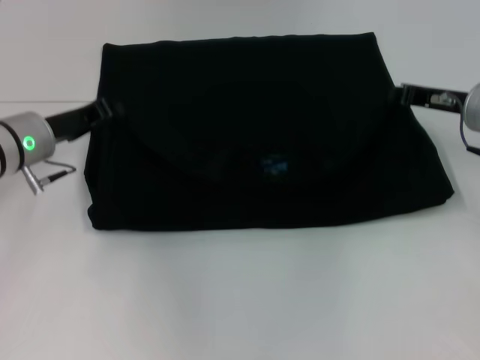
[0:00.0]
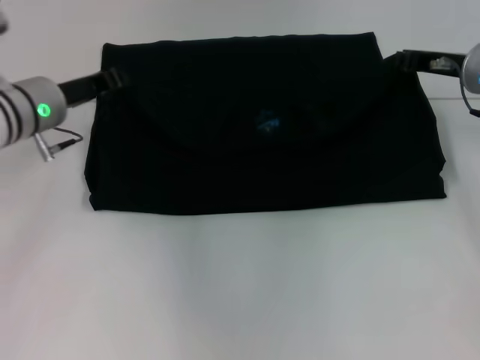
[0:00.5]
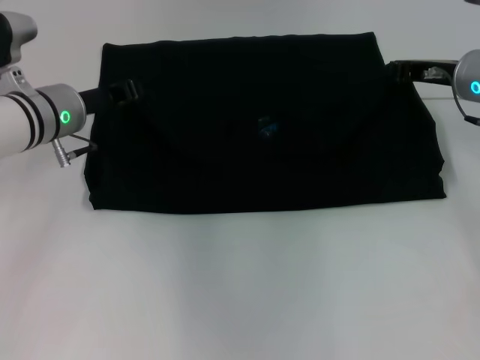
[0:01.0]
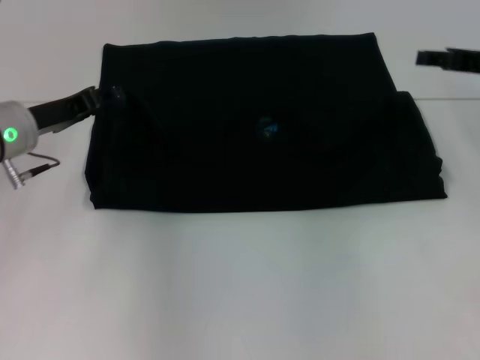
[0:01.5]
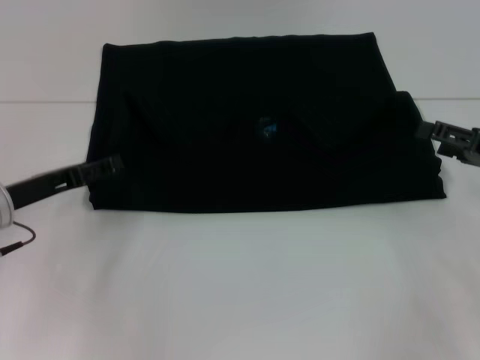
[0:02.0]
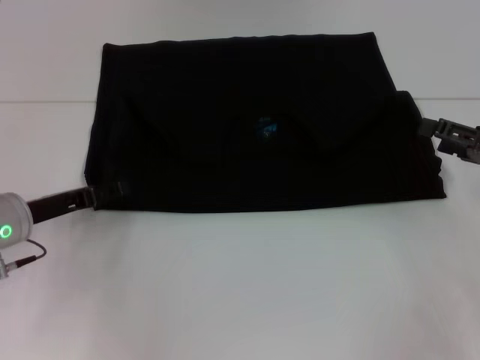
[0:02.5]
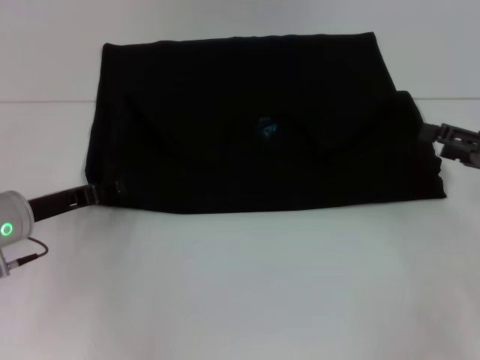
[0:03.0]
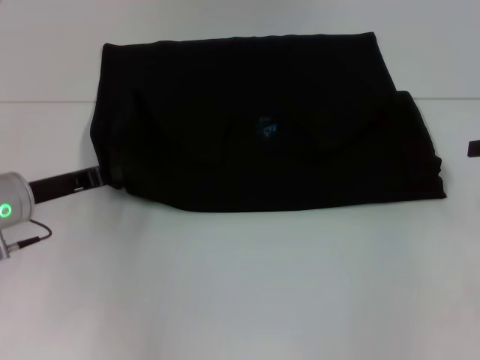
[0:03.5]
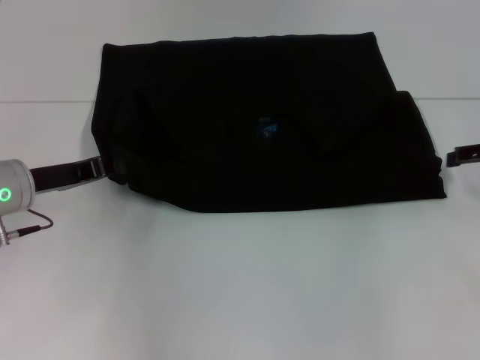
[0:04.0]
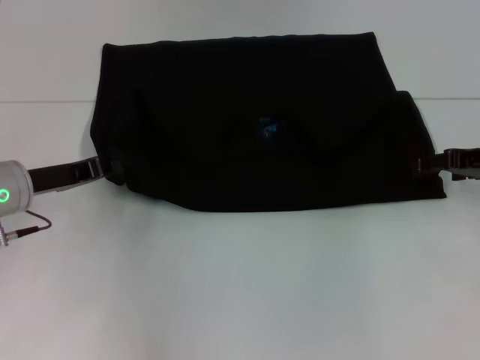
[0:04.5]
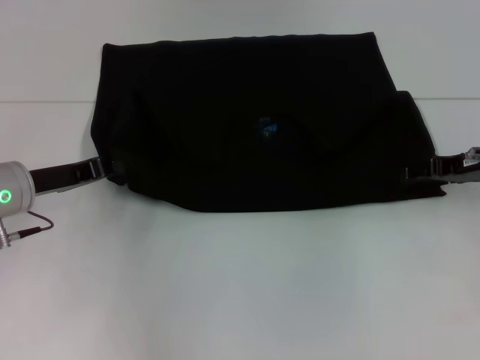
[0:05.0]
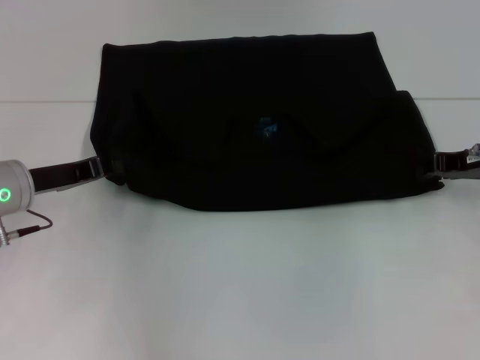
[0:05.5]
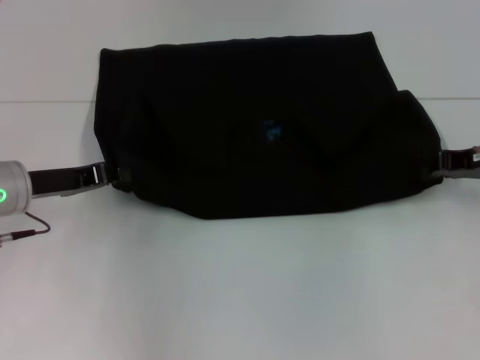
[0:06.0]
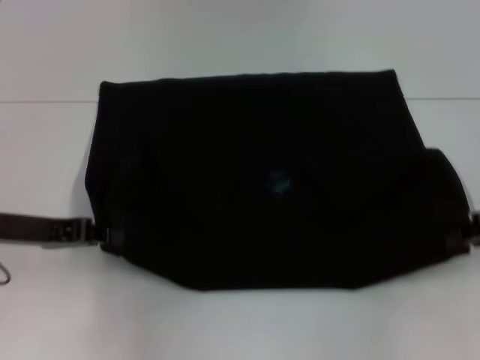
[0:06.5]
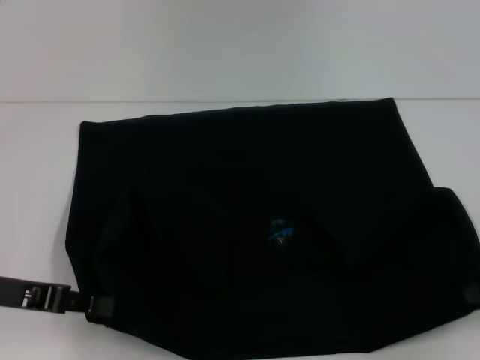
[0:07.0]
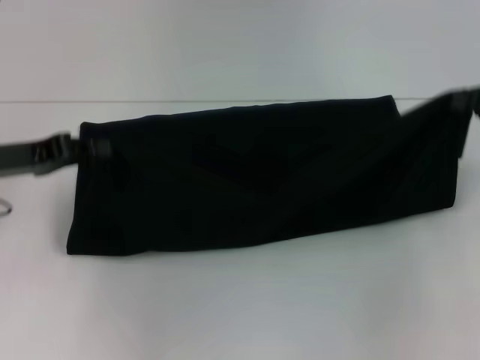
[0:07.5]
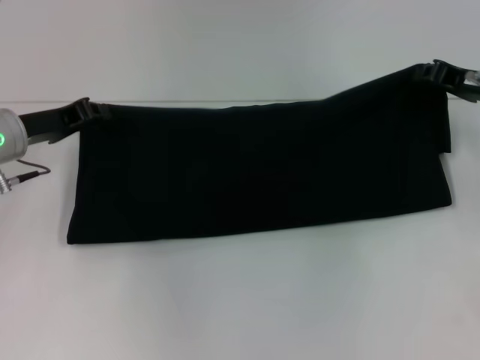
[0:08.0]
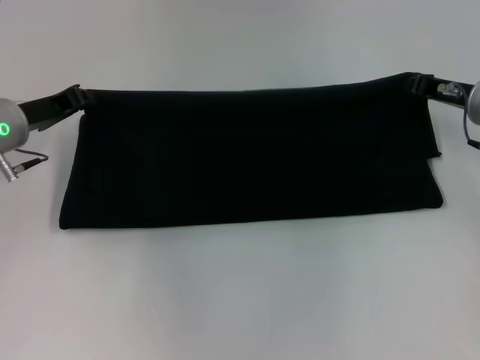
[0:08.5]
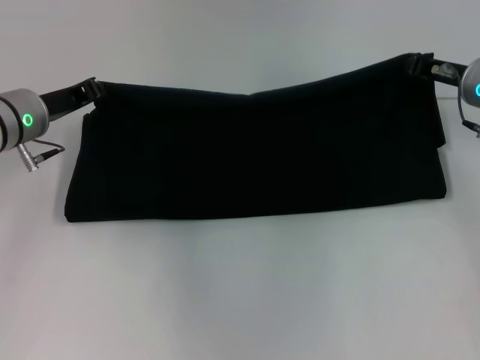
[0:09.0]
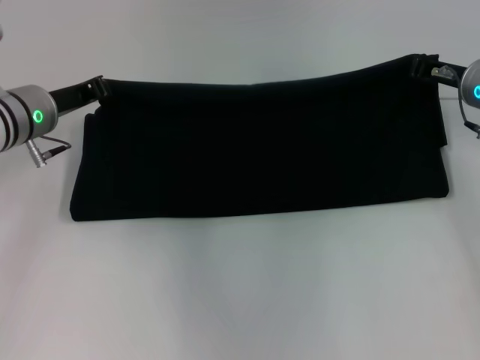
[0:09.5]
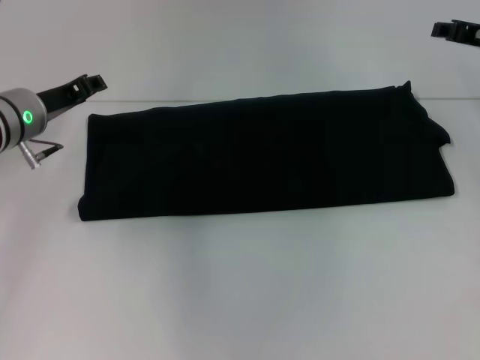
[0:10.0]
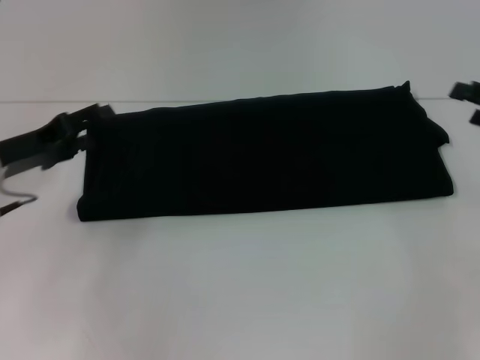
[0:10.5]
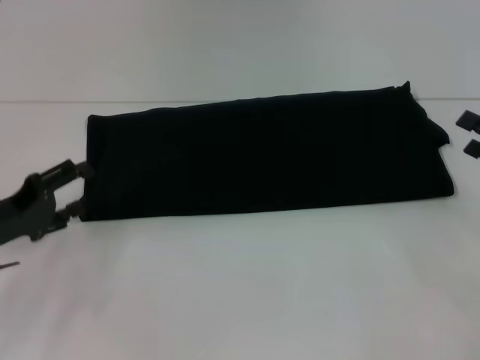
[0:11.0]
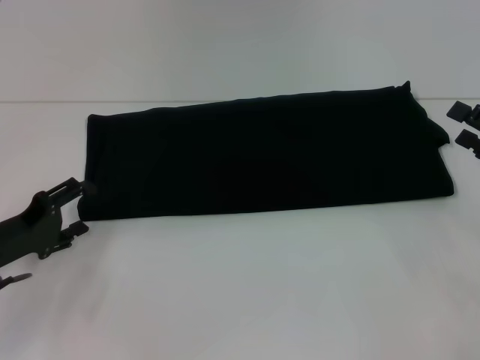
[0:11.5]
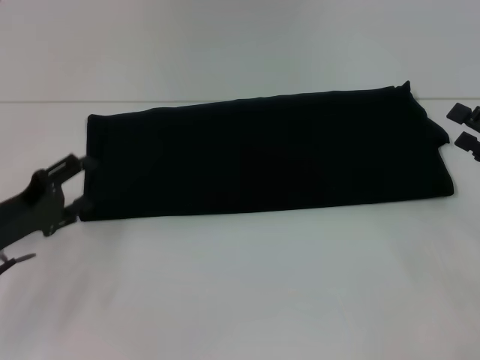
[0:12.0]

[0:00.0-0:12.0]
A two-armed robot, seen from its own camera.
Step, 0:01.5 to 0:06.5: Pull the clothes with your left hand.
Step, 0:01.5 to 0:06.5: Pull the clothes with your right hand.
Step, 0:07.0 to 0:09.5: Fold the clothes with your right hand.
0:00.0 to 0:02.0: The right gripper heads backward and to the right, covering some 10 cm, and opens its fingers. The left gripper heads backward, covering roughly 5 cm, and opens its fingers.
0:02.0 to 0:04.0: The right gripper heads forward, covering approximately 5 cm; the left gripper closes up.
0:04.0 to 0:06.0: The right gripper heads to the left, covering some 5 cm, and closes up.
0:06.0 to 0:08.0: The left gripper travels backward and back again, about 10 cm each way. The right gripper travels backward and back again, about 10 cm each way.
0:08.0 to 0:10.0: The right gripper moves approximately 5 cm.
0:10.0 to 0:12.0: The two grippers go some 15 cm backward and downward. The left gripper opens; the right gripper opens up.

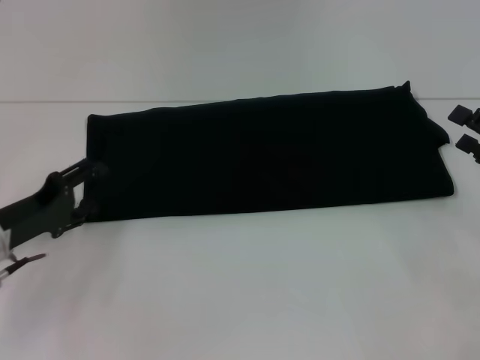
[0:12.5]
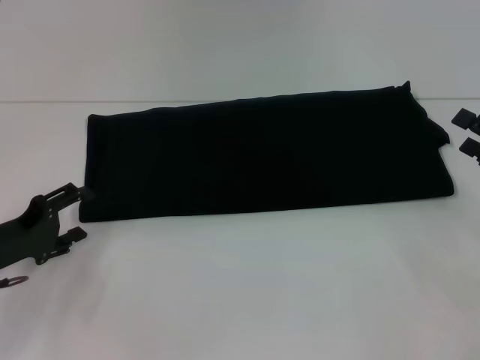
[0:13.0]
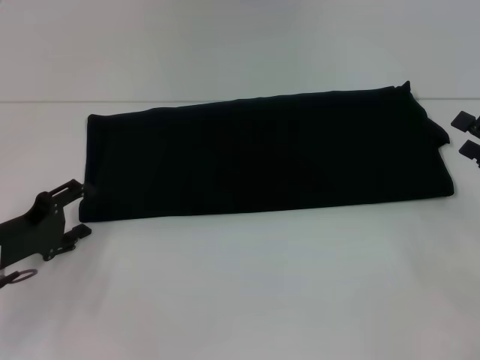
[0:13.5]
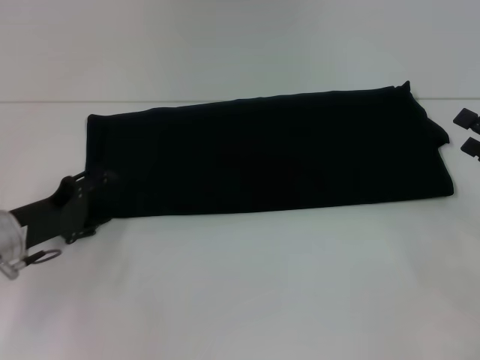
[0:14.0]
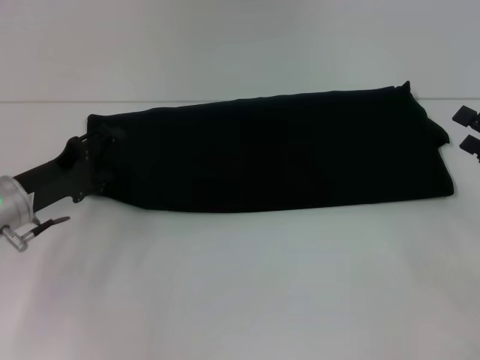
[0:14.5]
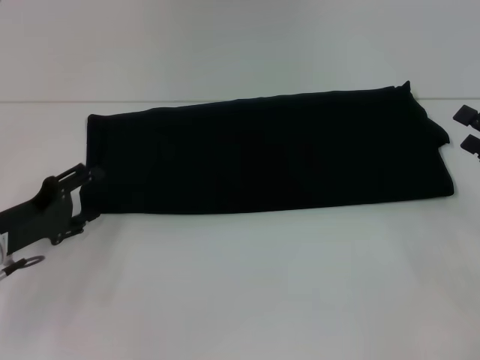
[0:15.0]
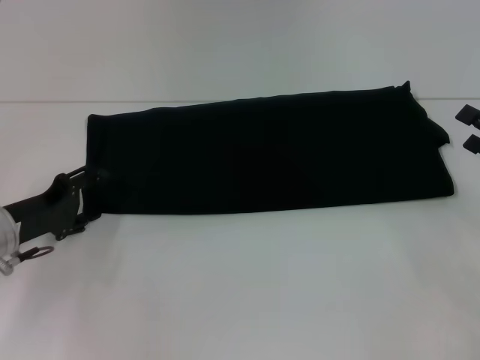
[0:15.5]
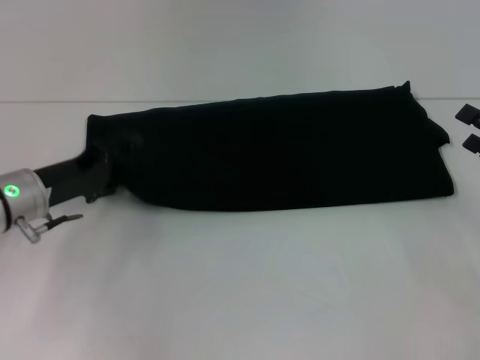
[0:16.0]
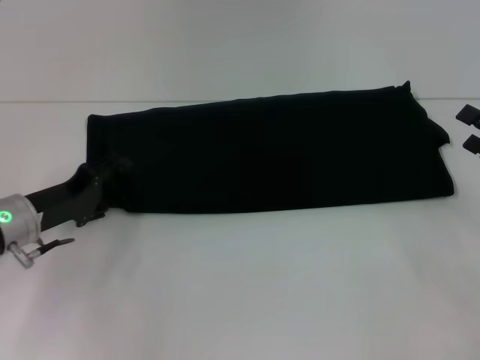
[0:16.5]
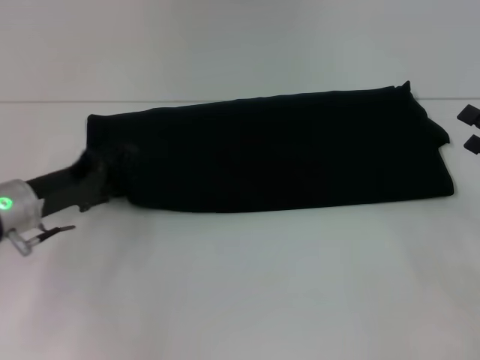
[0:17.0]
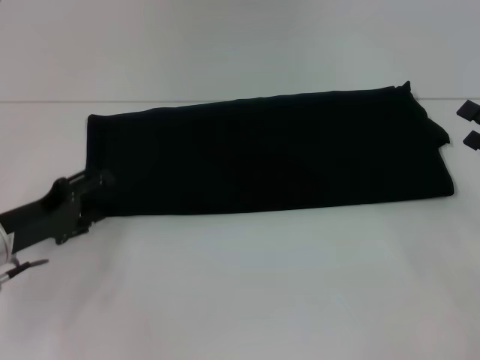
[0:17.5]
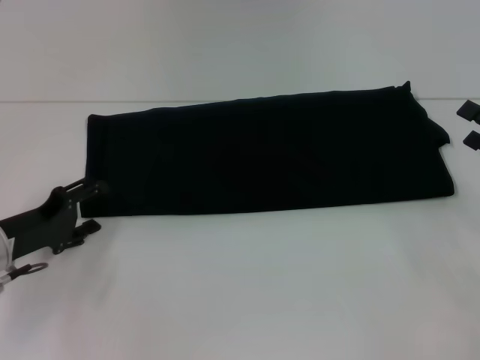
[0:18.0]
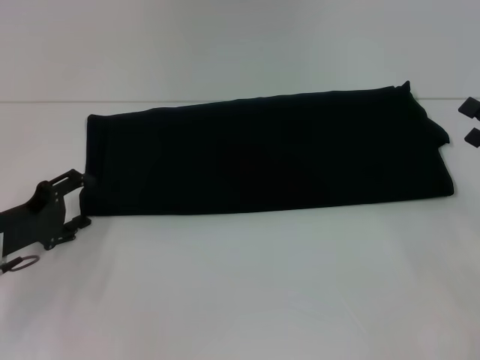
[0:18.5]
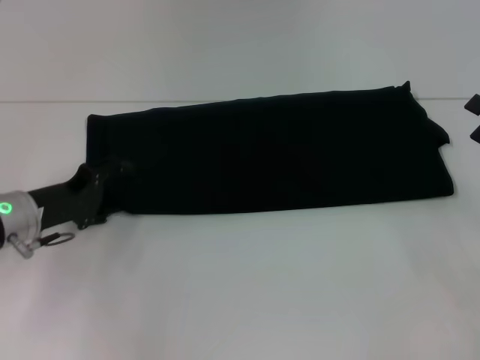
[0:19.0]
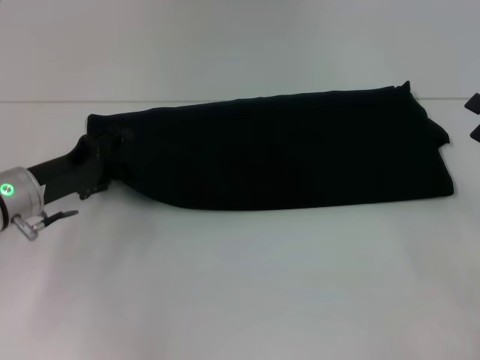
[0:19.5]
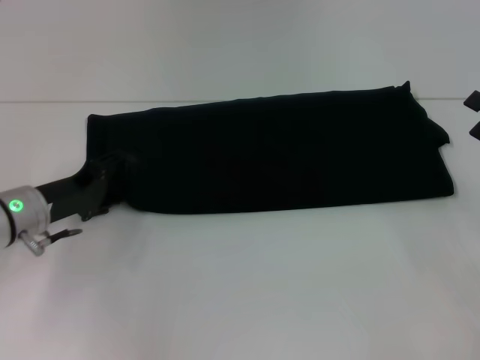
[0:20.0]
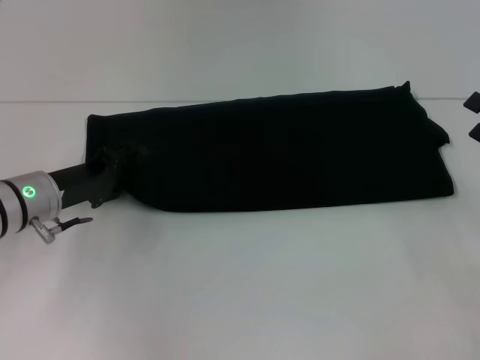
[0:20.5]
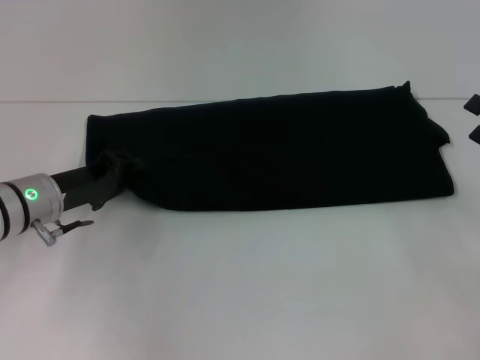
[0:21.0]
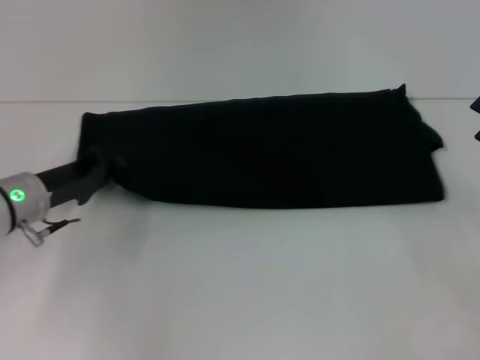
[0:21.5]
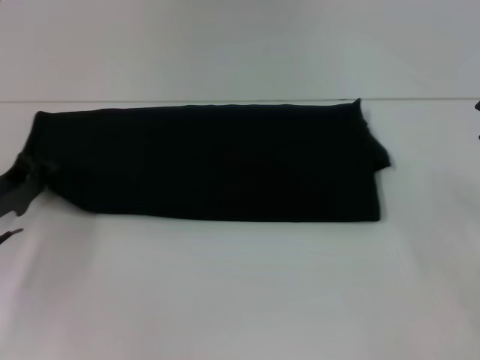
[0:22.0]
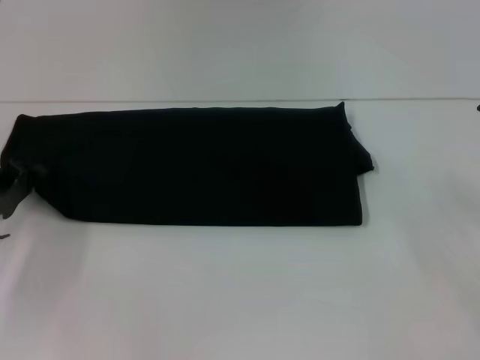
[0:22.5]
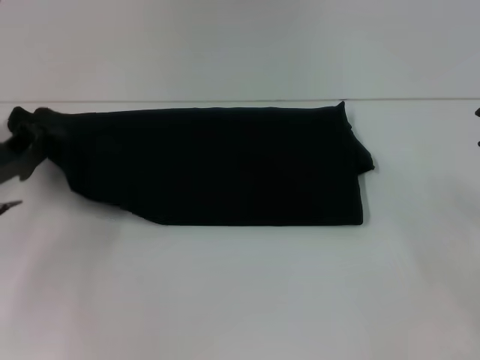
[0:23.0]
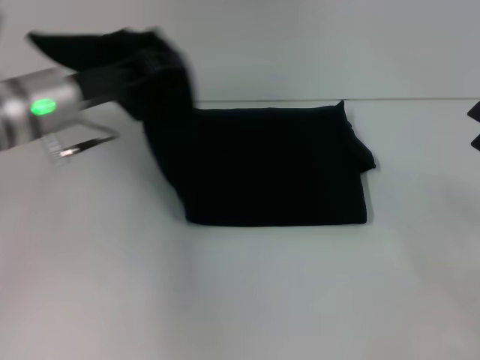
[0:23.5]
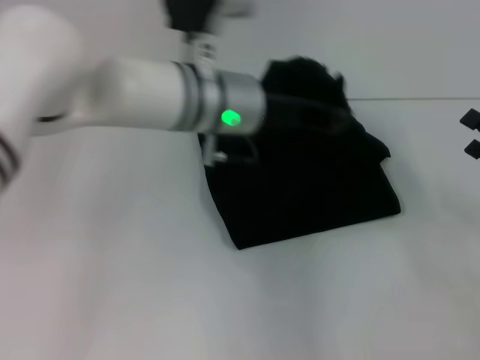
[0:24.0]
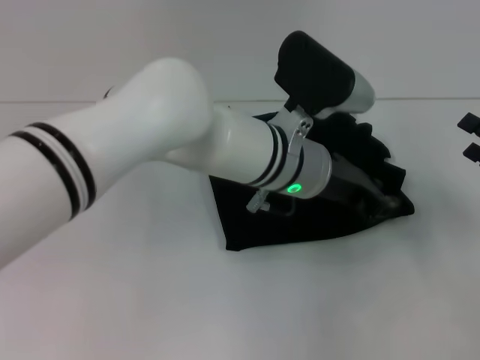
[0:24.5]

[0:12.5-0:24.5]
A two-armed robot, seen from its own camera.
0:12.5 to 0:14.5: The grippers stay close to where they were, moving slightly.
0:14.5 to 0:18.5: The grippers move only a little.
0:18.5 to 0:20.5: The left gripper travels forward and to the right by roughly 10 cm.
0:20.5 to 0:22.5: The left gripper shifts about 10 cm to the left, and closes its fingers.
0:22.5 to 0:24.5: The left gripper is displaced to the right by approximately 35 cm.

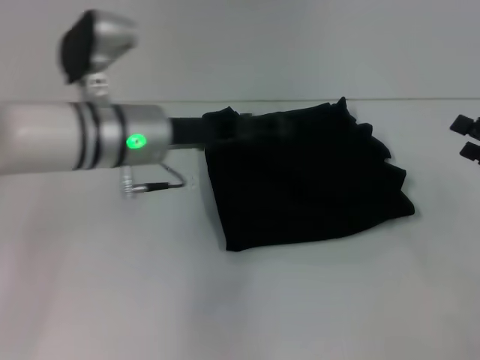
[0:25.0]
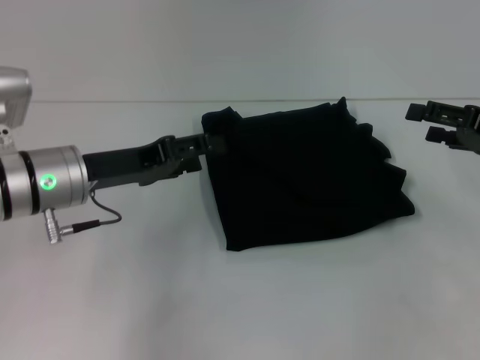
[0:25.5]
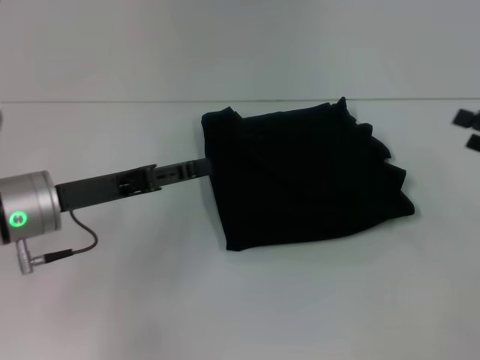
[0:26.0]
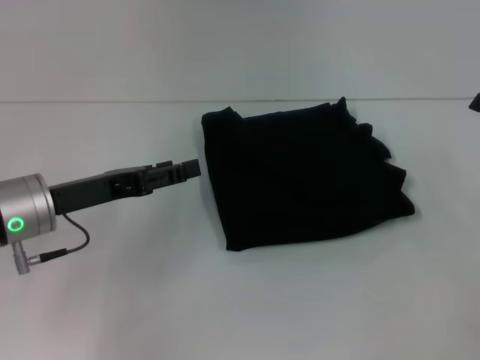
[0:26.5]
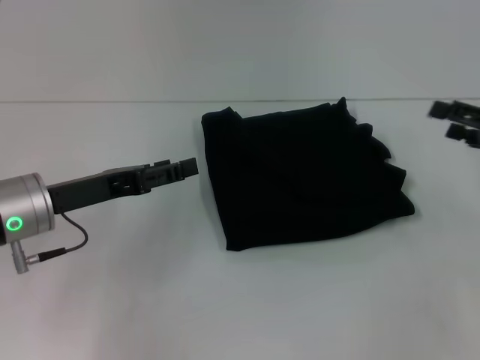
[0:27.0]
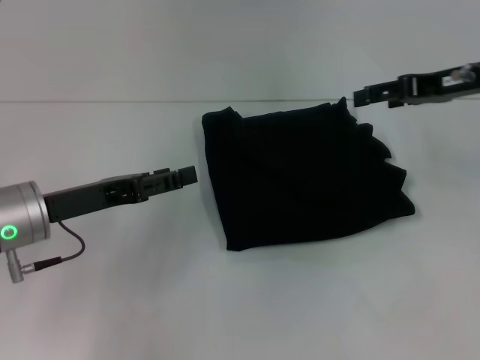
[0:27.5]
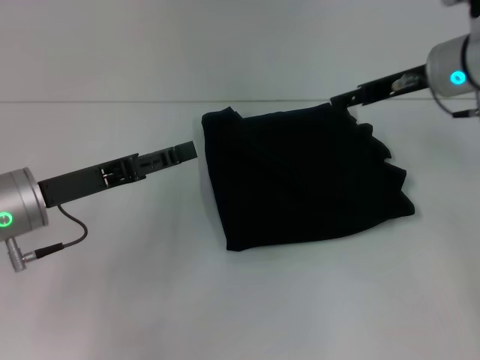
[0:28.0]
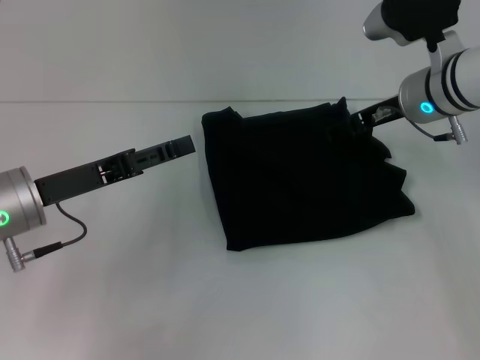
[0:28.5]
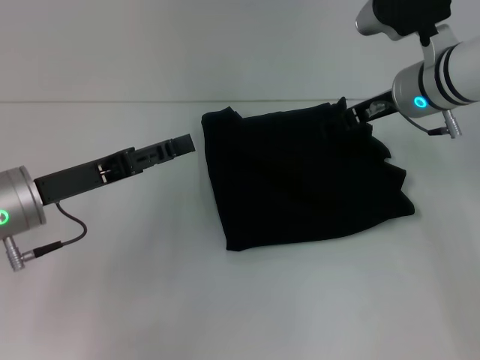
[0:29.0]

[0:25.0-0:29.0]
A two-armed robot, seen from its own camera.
0:25.0 to 0:27.0: The left gripper goes some 10 cm to the left and backward; the right gripper changes place by approximately 5 cm.
0:27.0 to 0:29.0: The right gripper heads to the left and forward, covering some 20 cm.
